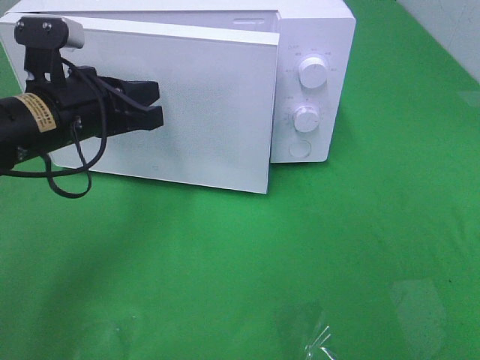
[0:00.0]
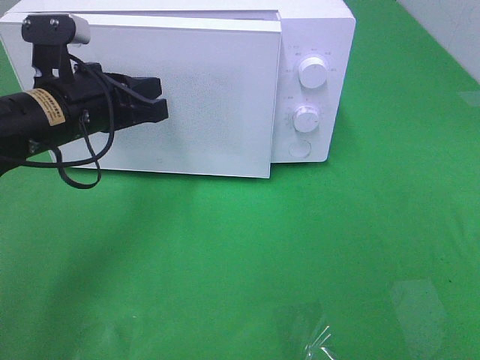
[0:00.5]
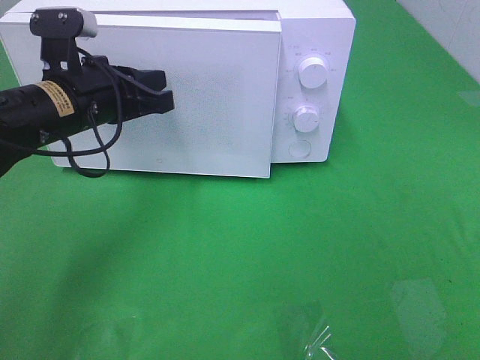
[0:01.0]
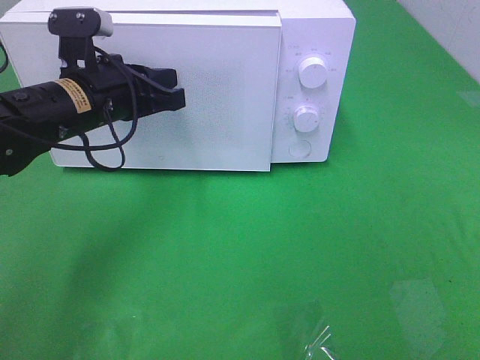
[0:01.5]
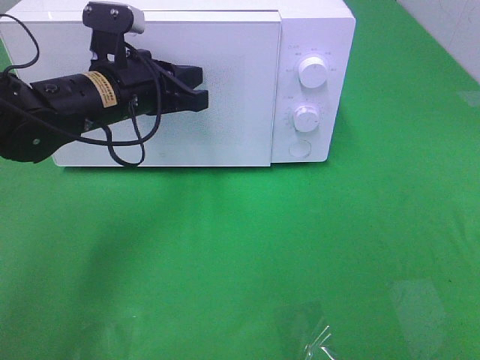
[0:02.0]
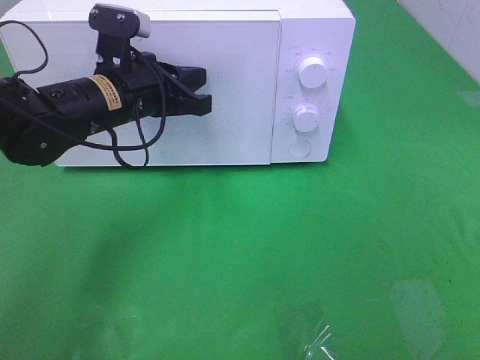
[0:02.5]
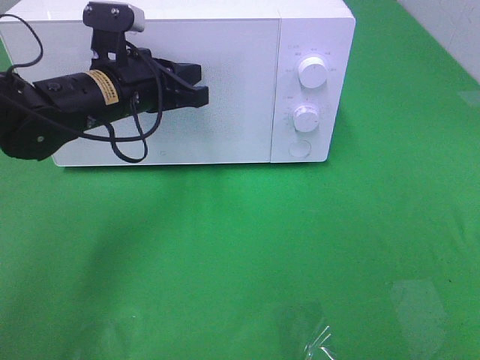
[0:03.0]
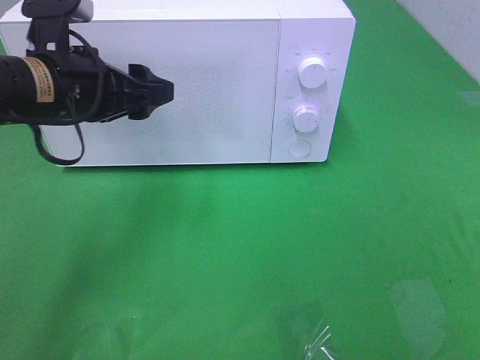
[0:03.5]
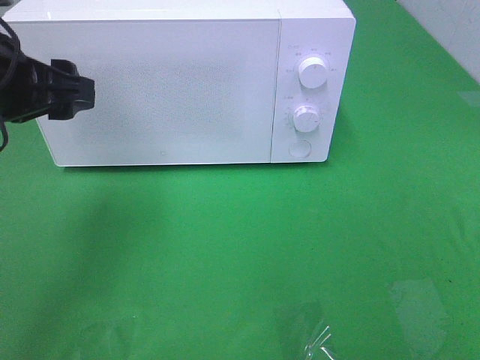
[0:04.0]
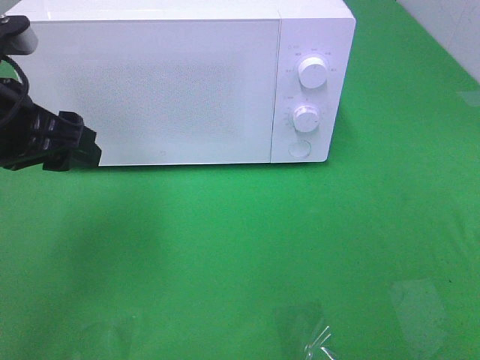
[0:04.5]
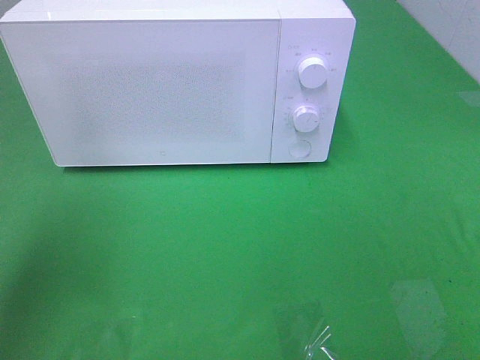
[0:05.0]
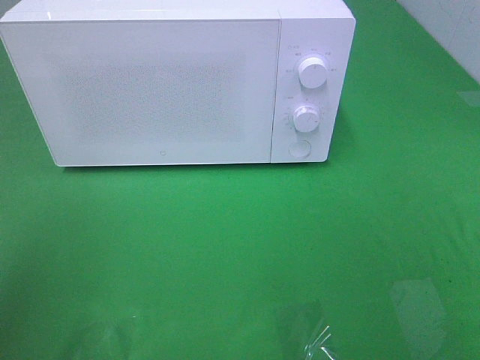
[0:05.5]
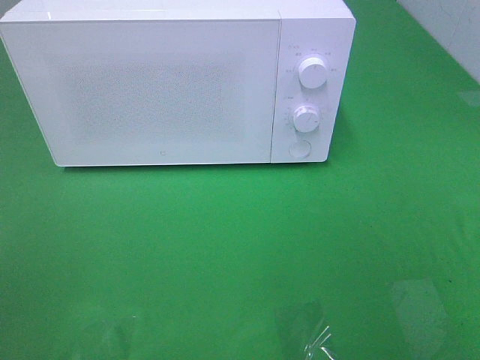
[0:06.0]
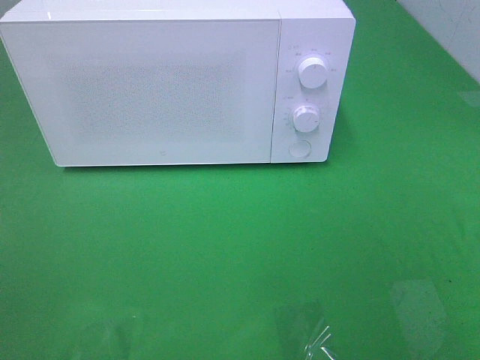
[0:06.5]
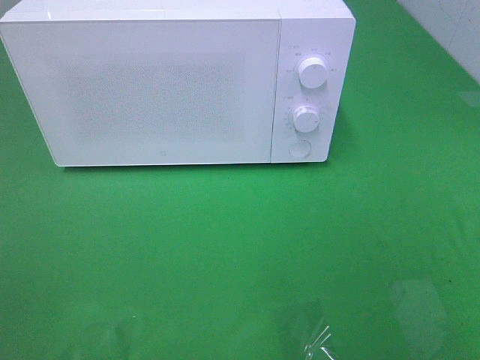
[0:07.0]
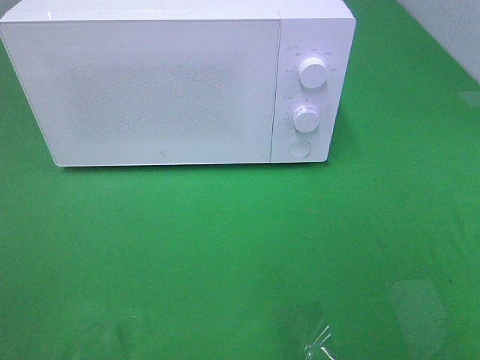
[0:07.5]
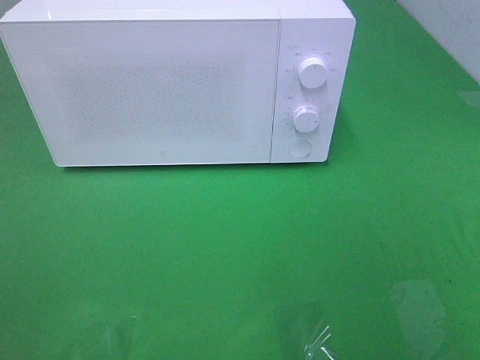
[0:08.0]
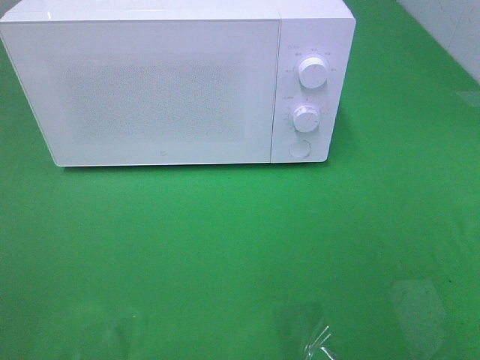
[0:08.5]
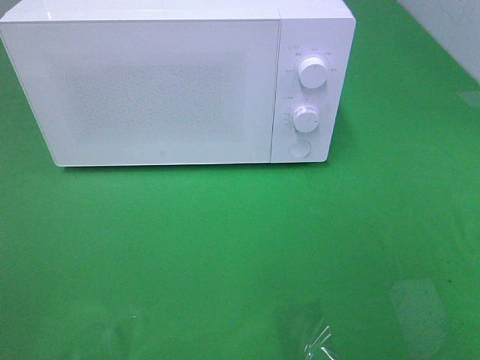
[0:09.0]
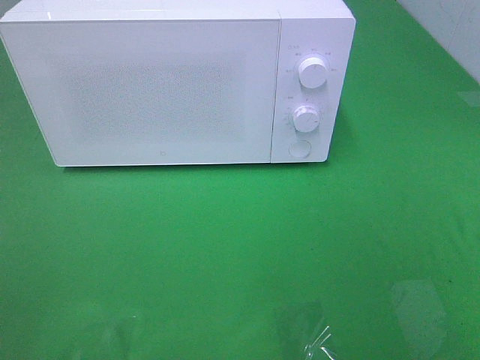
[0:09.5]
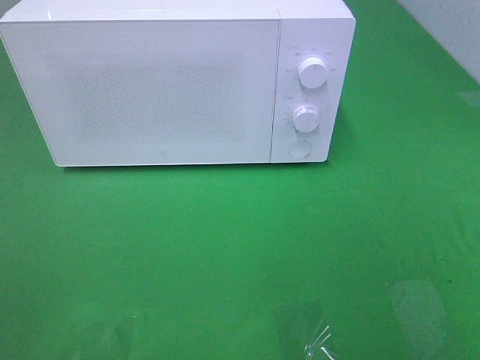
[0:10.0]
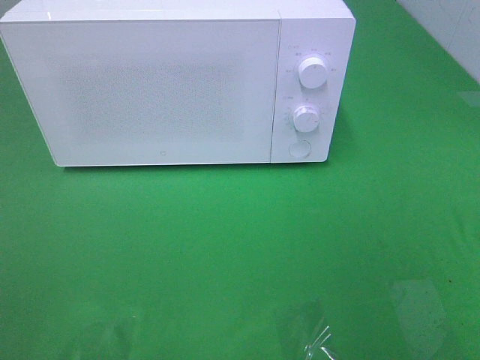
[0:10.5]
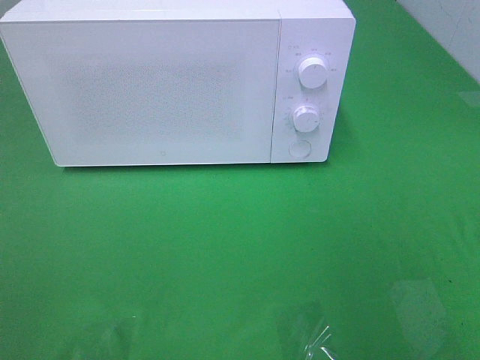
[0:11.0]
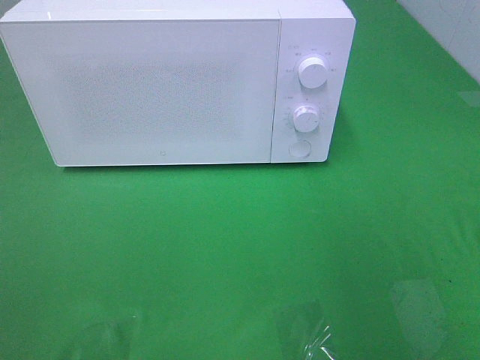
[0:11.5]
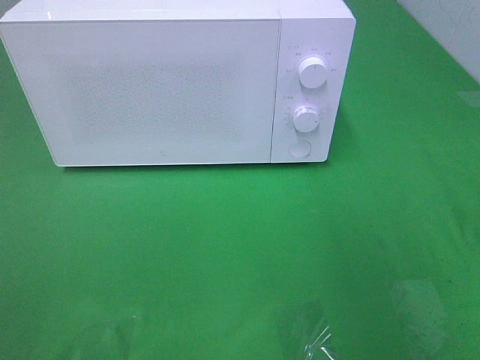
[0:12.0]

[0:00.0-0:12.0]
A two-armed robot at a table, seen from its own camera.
Task of the whole recording: Heat the burger.
Step, 0:00.0 to 0:03.5: Left hand: close the microwave door.
0:00.0 to 0:02.0: The left gripper heads forward, covering some 5 cm.
0:02.0 to 0:04.0: The left gripper shifts about 15 cm to the left, backward and upward, and opens.
0:04.0 to 0:06.0: The left gripper shifts roughly 25 cm backward and to the left.
0:08.0 to 0:10.0: Both grippers stay about where they are.

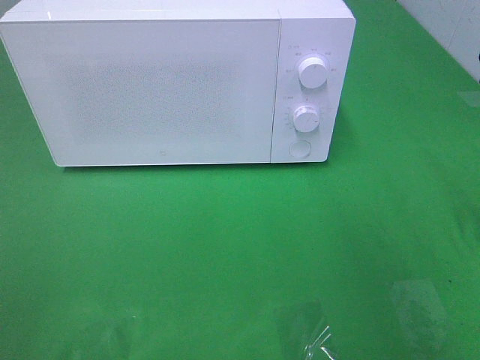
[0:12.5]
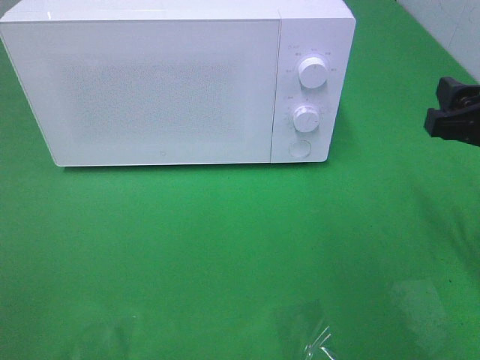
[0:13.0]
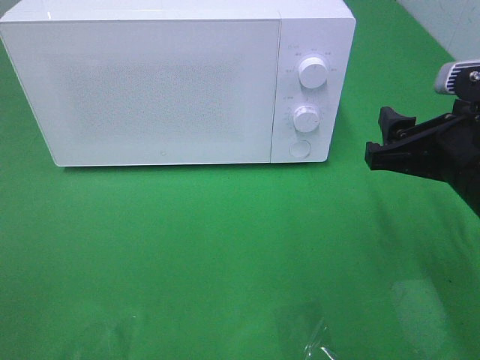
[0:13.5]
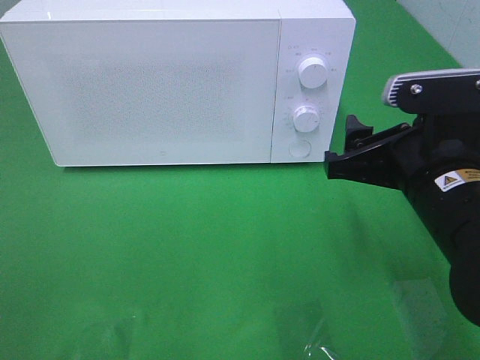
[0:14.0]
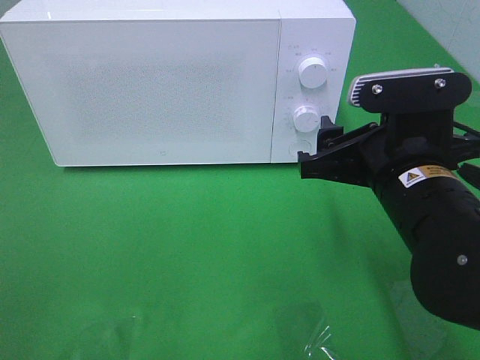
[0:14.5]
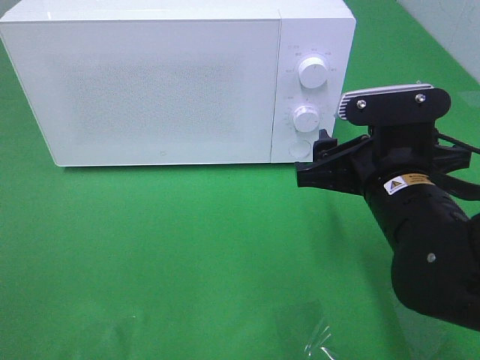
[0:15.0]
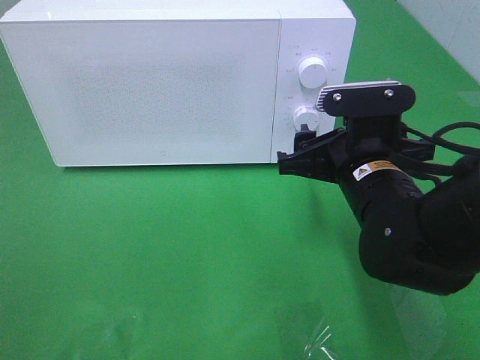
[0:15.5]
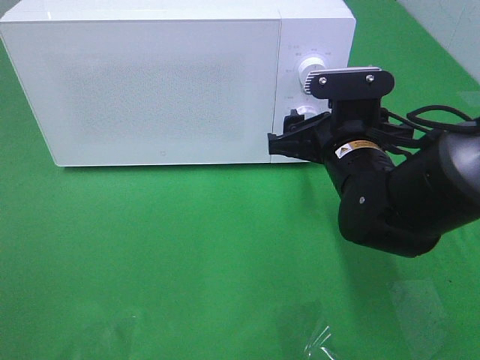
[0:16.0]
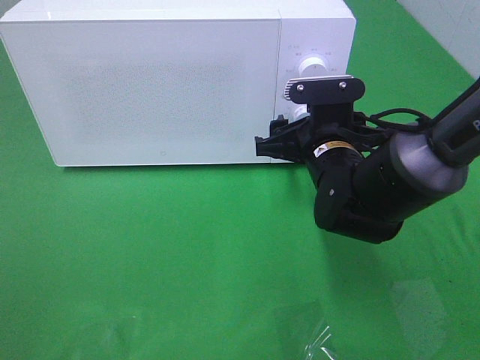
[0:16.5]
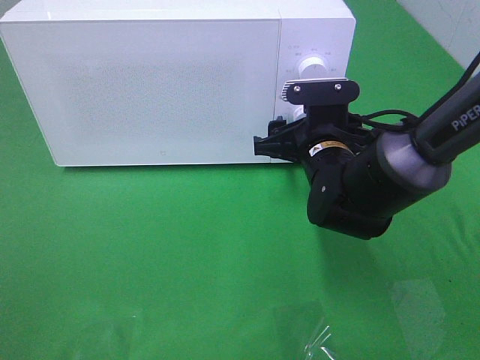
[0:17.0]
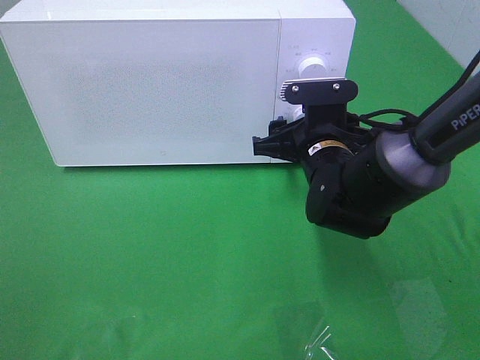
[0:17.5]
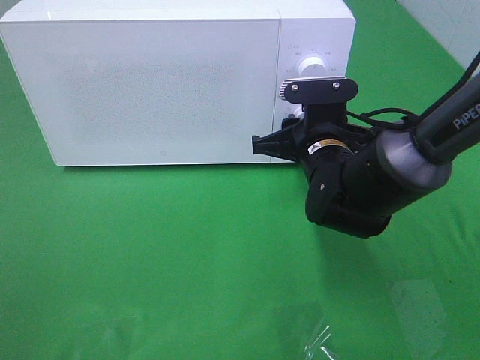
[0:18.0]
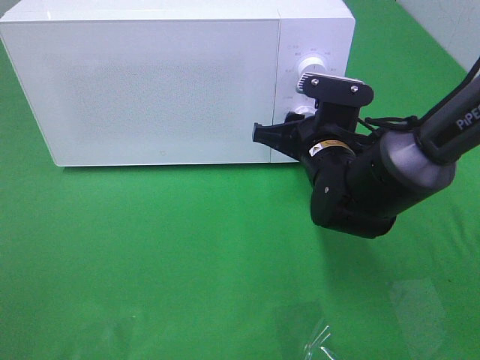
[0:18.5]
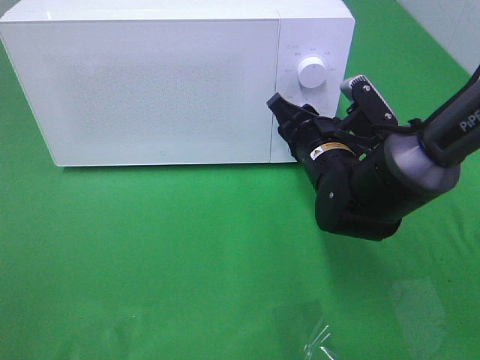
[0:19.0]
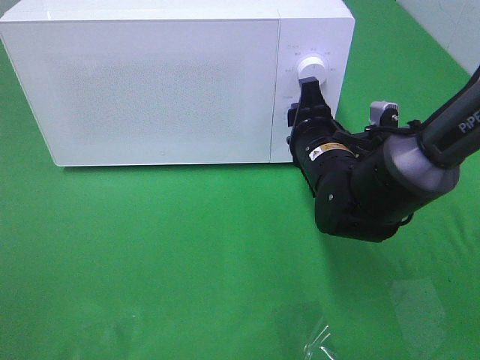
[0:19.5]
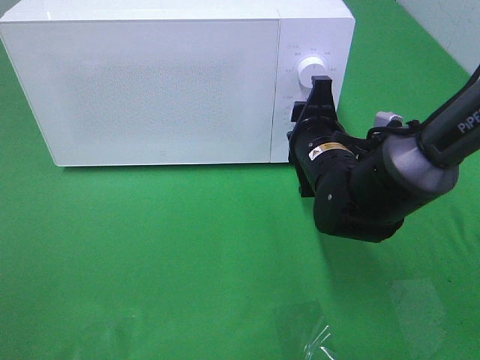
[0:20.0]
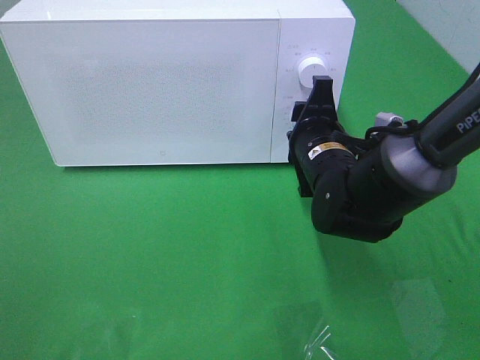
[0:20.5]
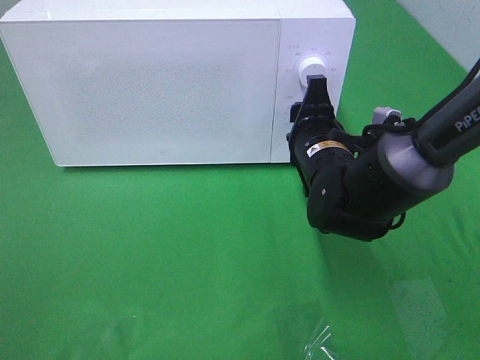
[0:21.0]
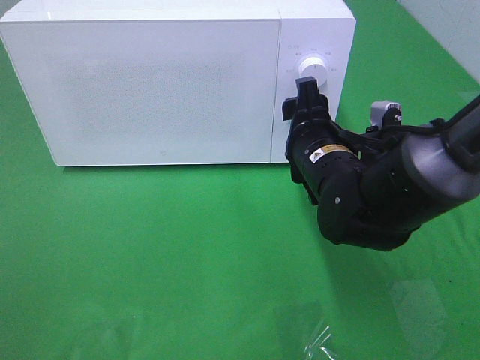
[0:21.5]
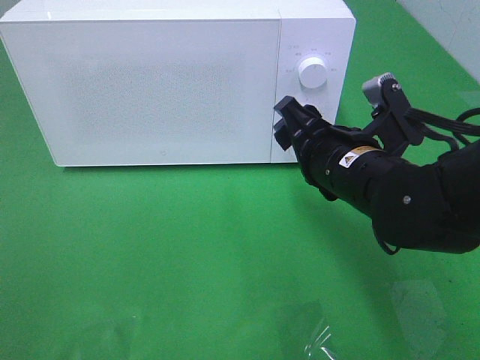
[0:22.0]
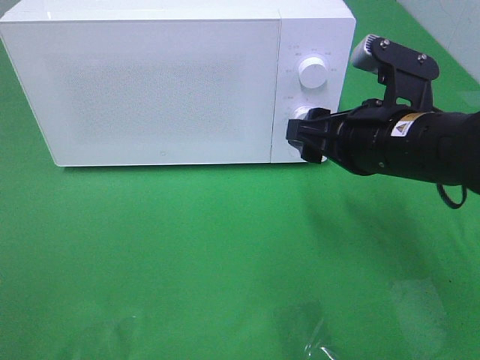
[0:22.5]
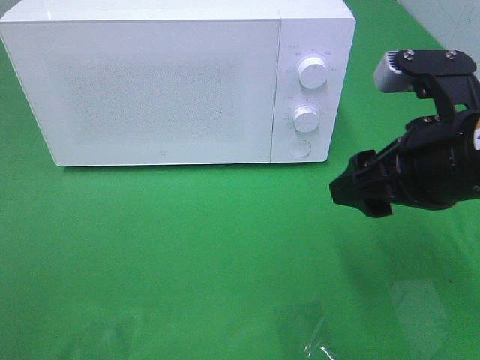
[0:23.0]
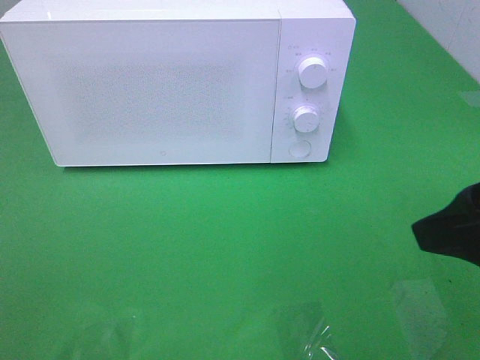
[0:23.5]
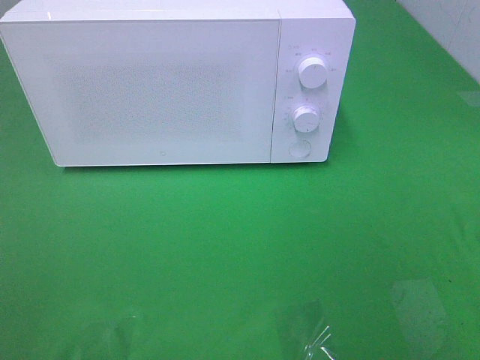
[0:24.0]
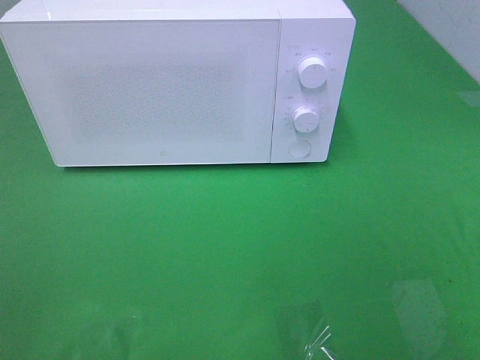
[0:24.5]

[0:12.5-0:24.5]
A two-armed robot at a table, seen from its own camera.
Task of the whole recording: Heat the burger.
Step, 0:12.5 to 0:22.0: Right hand: twist timer button.
0:12.5 to 0:14.5: The right gripper travels to the left and downward by some 15 cm.
0:14.5 to 0:16.5: The right gripper is displaced forward and downward by about 15 cm.
0:16.5 to 0:18.5: The right gripper closes its fingers.
0:20.5 to 0:22.5: The right gripper shifts some 10 cm upward and backward.
0:22.5 to 0:24.5: The right gripper heads backward and to the right, covering roughly 30 cm.

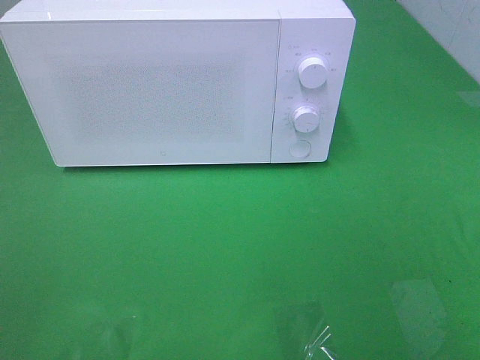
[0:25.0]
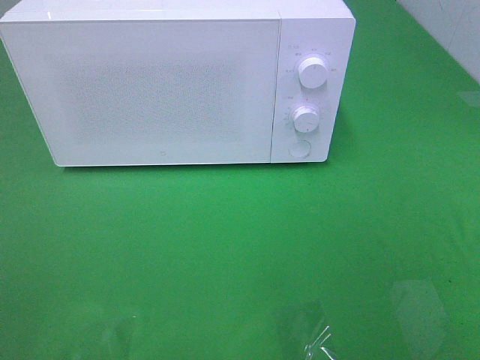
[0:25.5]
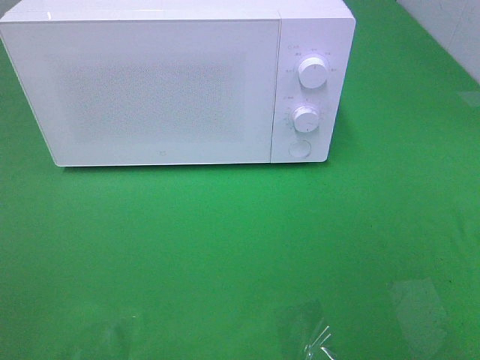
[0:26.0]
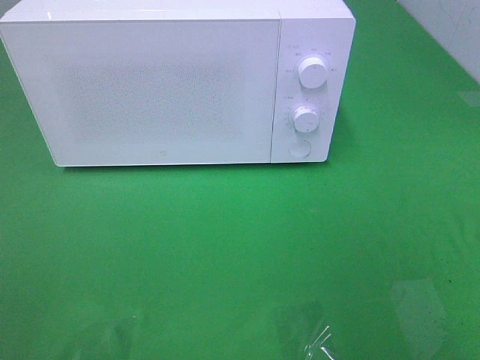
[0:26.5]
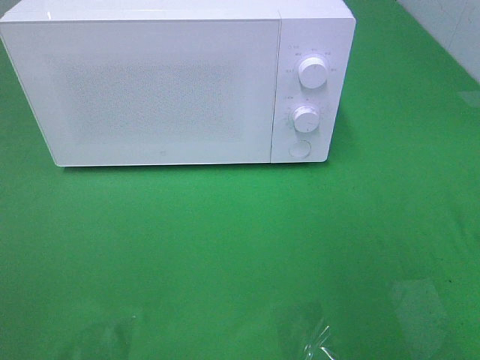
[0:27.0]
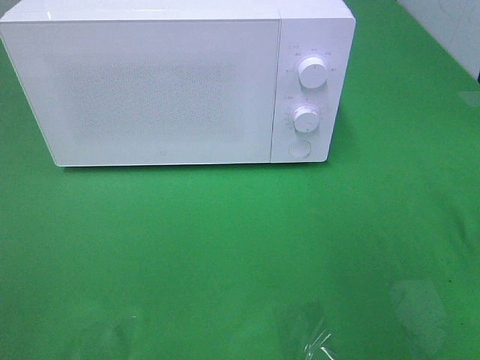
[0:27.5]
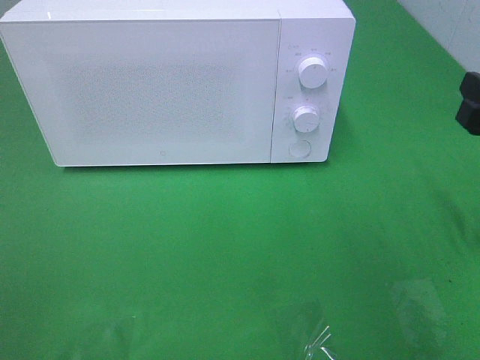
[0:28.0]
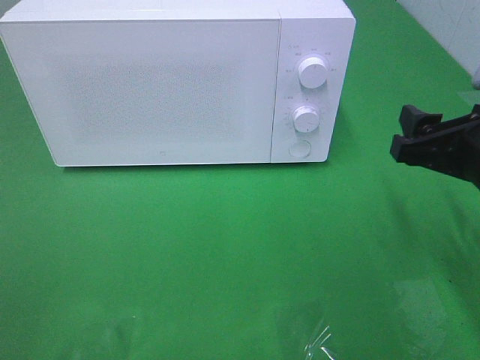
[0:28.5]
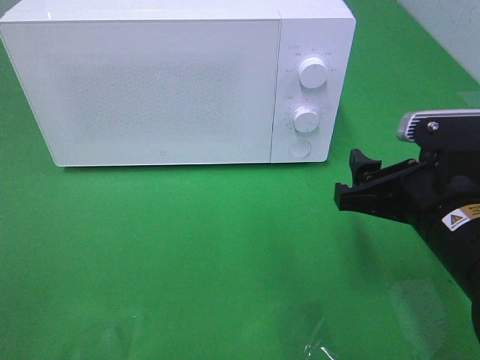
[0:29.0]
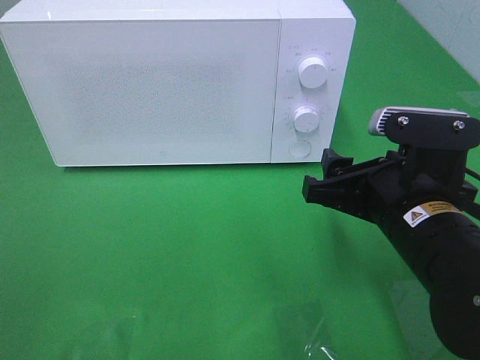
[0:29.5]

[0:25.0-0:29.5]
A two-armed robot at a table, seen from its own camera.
Task of the whole recording: Heat the burger.
0:27.0 to 0:29.5: The right gripper moves downward and to the left, about 20 cm.
